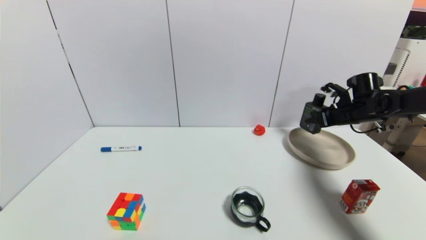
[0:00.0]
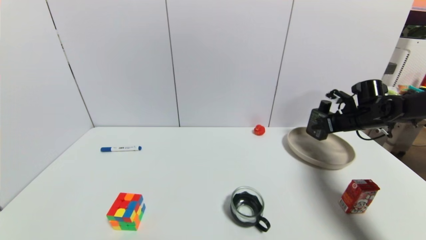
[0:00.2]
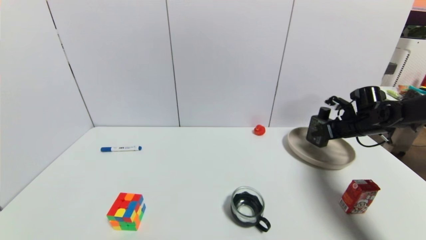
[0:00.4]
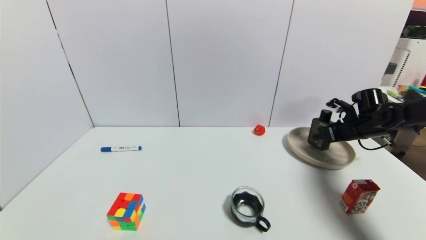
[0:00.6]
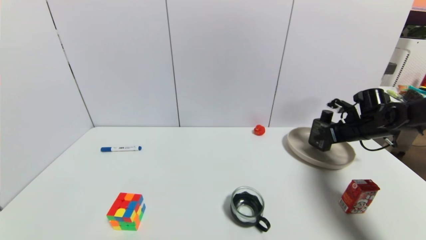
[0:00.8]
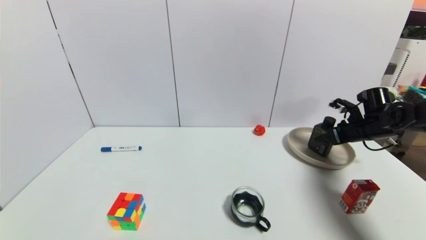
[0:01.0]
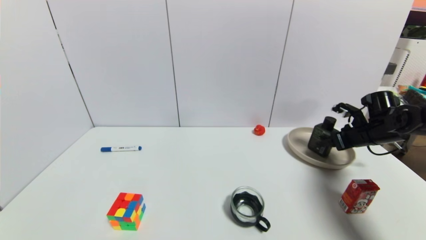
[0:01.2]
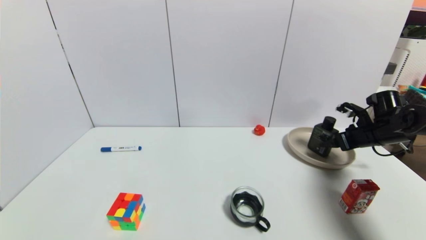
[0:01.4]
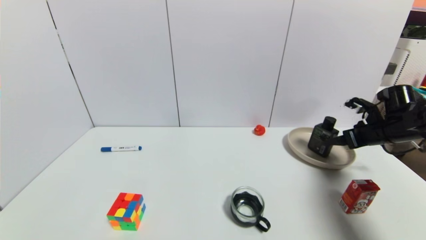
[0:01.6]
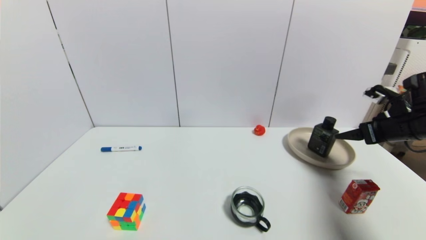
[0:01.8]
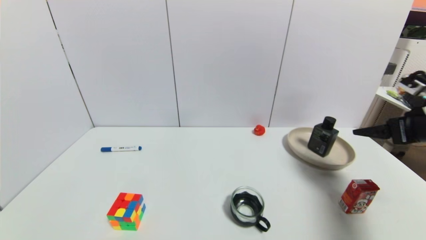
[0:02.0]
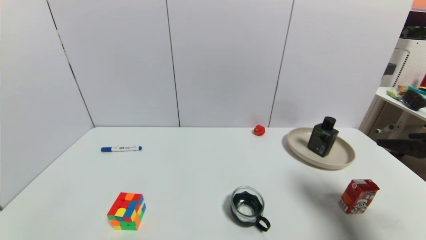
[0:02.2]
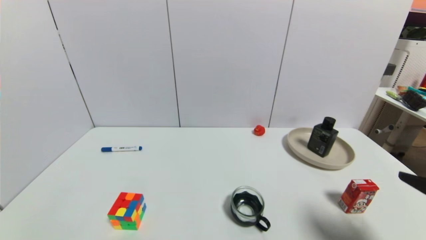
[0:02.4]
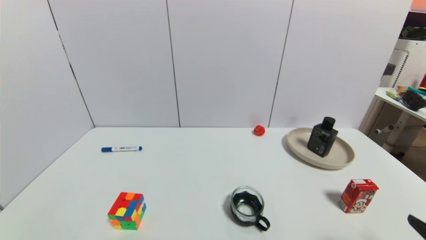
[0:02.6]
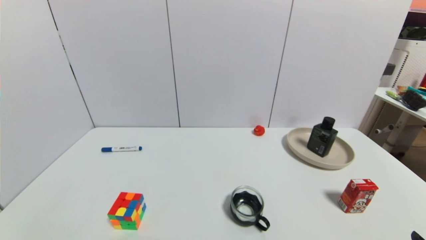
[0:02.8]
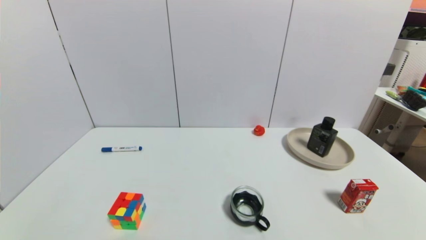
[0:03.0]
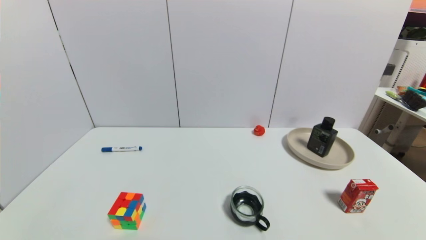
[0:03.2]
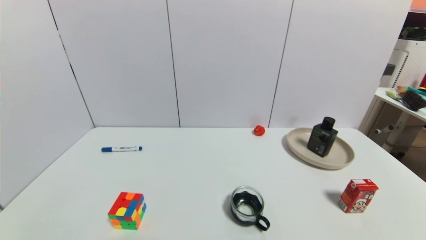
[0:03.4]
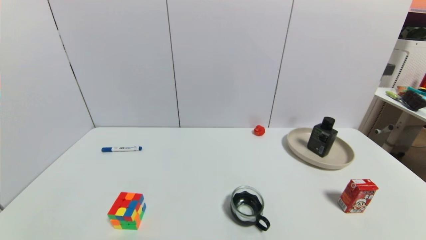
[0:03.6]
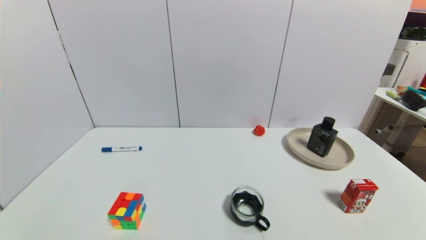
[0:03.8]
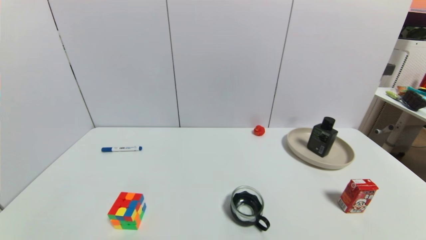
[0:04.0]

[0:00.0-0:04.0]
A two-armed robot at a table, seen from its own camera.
Task of the whole recording: use a gripper to pick the target object and place on the brown plate.
0:00.0 to 0:01.4: The right gripper heads backward, covering about 5 cm, and opens up.
0:01.4 to 0:02.6: The right gripper moves backward, some 35 cm.
